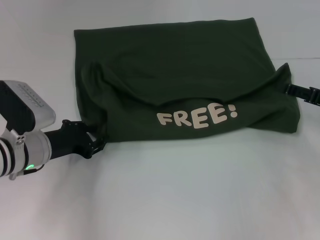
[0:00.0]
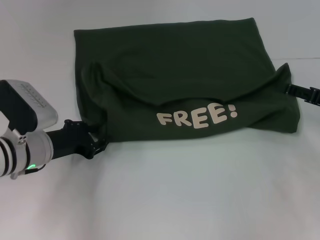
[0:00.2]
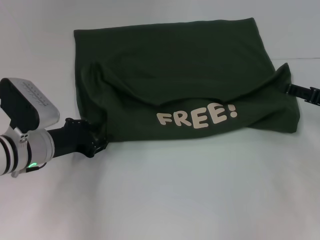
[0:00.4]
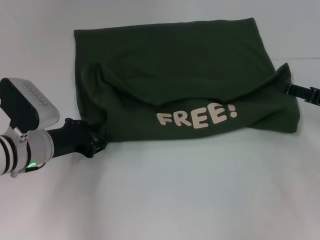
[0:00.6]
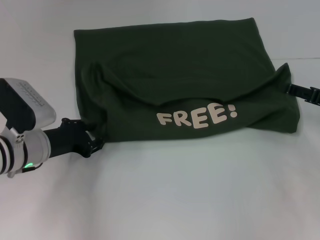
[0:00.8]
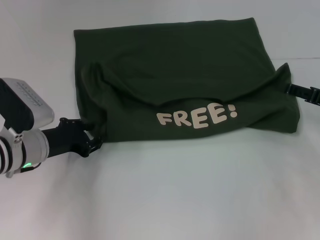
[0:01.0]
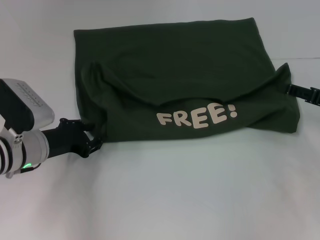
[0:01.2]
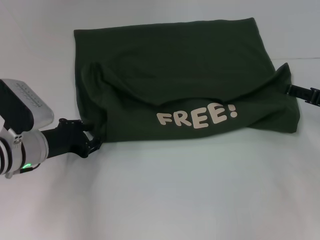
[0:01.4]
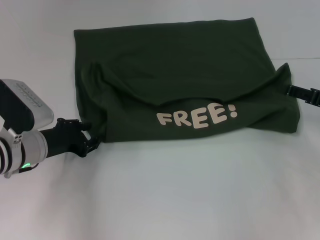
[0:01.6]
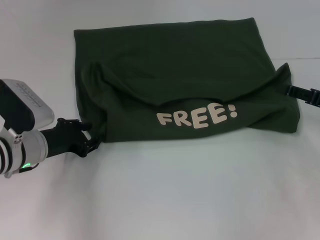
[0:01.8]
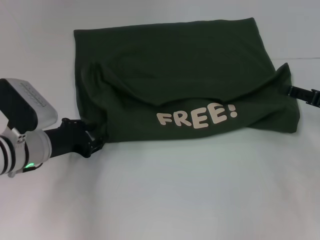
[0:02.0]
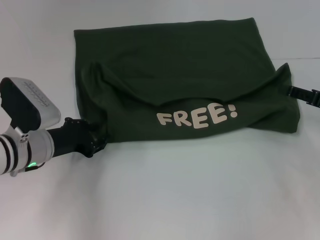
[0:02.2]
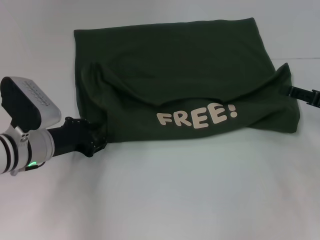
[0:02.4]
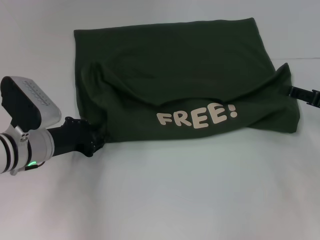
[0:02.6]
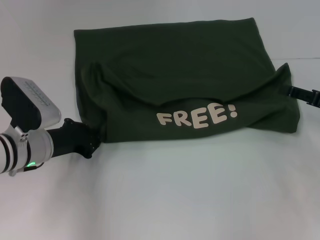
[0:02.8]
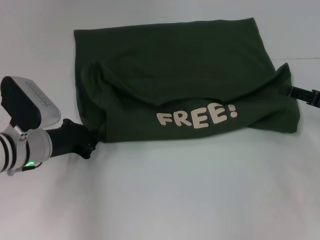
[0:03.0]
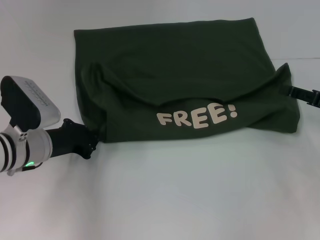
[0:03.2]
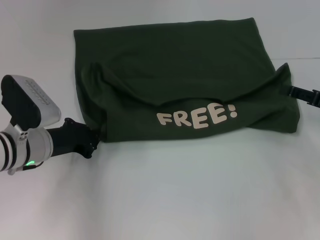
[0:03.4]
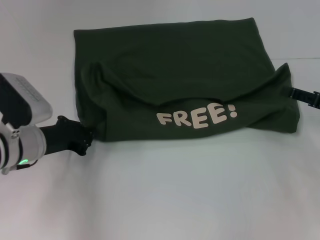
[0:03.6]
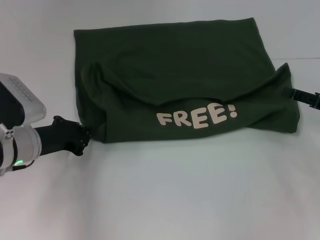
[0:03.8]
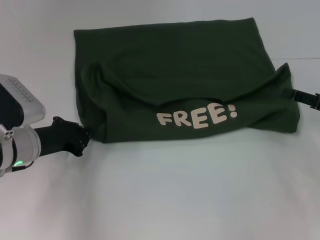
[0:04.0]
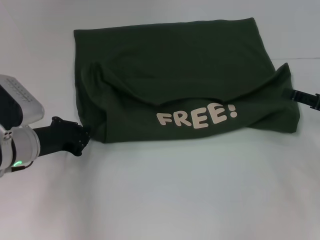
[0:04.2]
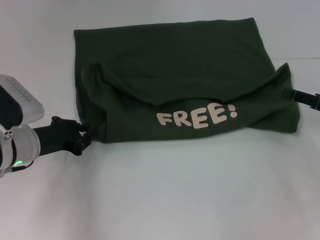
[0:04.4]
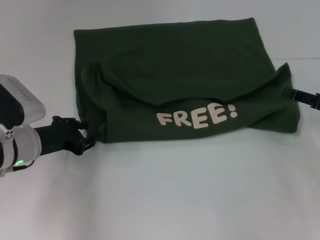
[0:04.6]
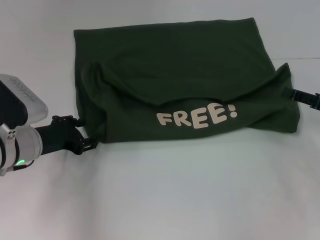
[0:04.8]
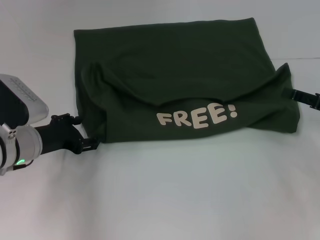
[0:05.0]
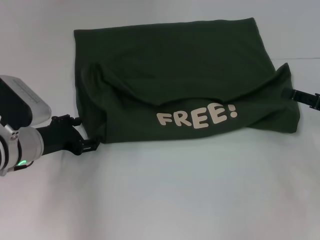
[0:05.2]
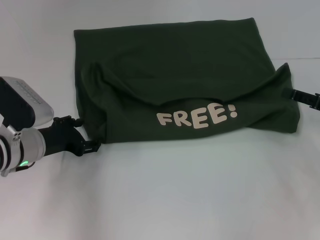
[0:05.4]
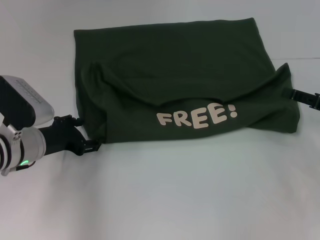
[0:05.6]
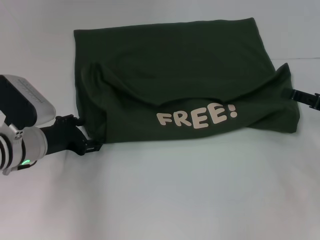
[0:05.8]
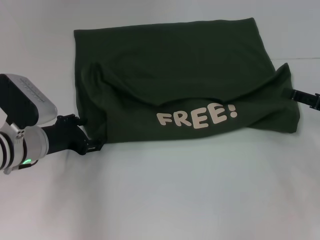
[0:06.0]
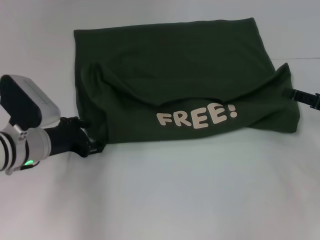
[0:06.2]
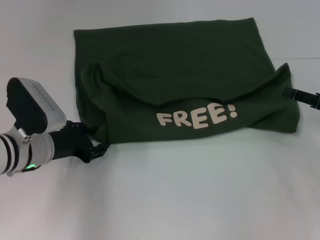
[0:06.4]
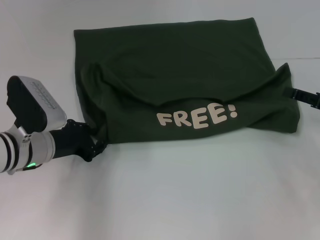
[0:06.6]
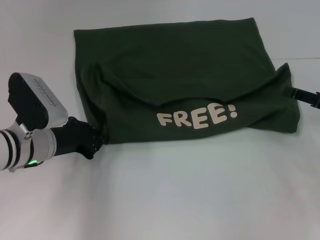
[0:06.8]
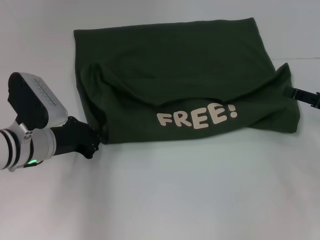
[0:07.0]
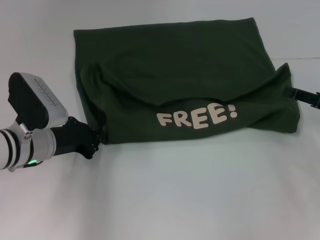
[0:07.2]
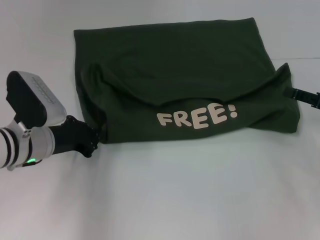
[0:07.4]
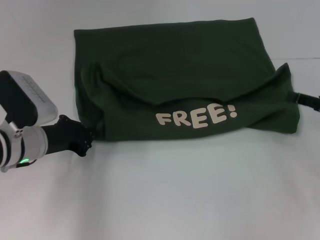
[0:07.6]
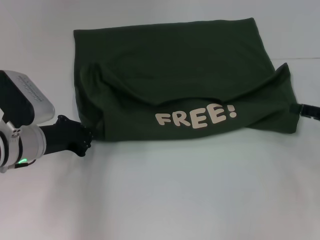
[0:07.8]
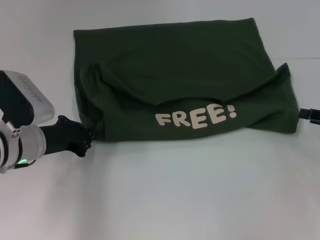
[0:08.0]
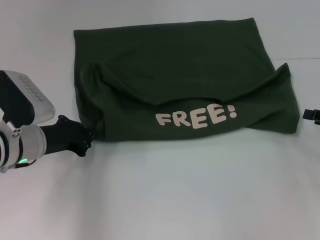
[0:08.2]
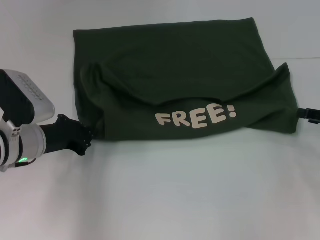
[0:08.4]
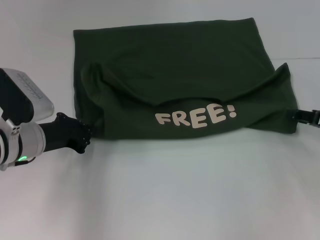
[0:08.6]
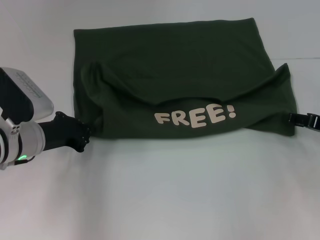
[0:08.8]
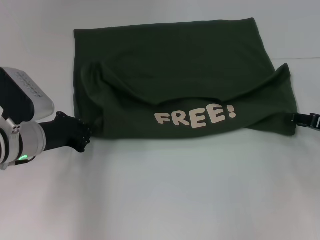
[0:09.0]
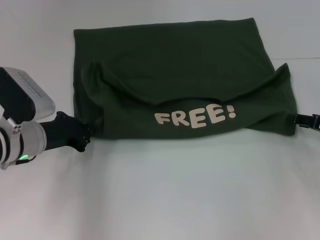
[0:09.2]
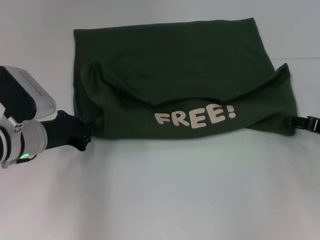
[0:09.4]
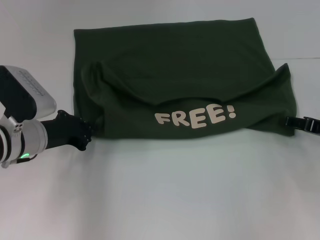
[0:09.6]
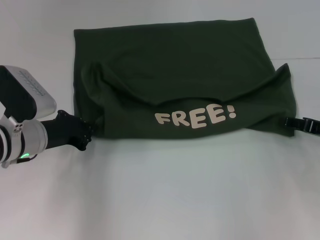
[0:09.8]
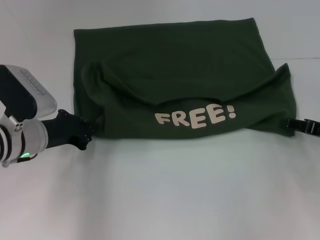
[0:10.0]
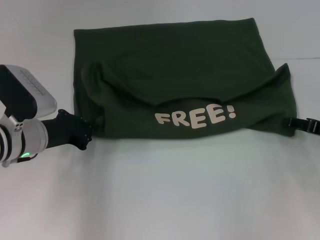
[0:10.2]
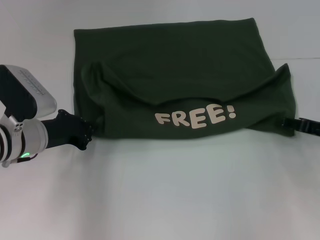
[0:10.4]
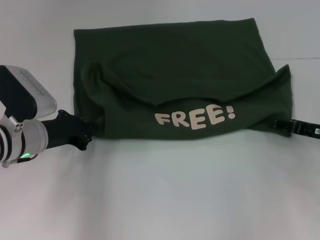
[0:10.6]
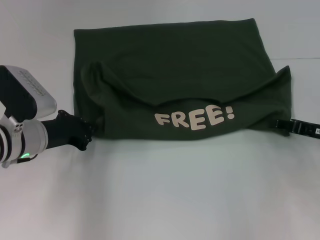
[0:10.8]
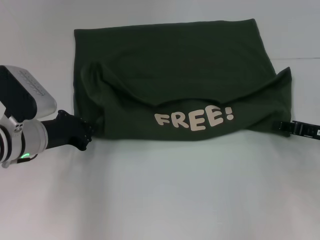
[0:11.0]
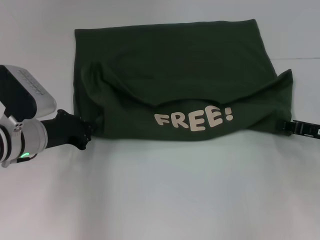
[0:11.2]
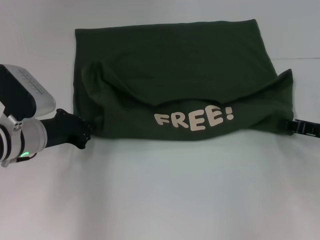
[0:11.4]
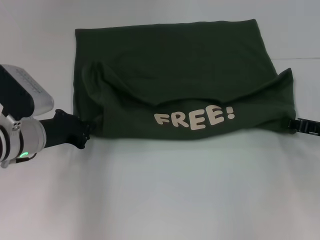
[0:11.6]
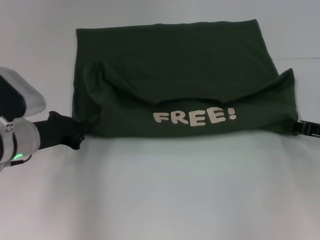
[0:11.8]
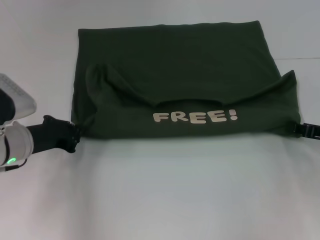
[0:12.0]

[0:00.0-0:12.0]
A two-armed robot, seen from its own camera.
0:00.0 to 0:03.0: Both grippers stay about where they are.
0:03.0 to 0:04.4: There are only small adjustments of the grippers.
0:04.4 to 0:06.0: The left gripper opens up.
0:06.0 to 0:07.6: The left gripper closes.
0:07.6 to 0:10.4: The grippers move only a little.
0:10.4 to 0:12.0: The right gripper closes its fingers.

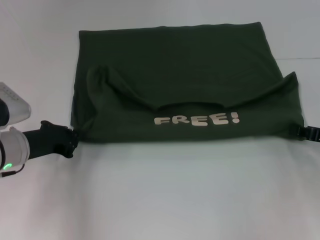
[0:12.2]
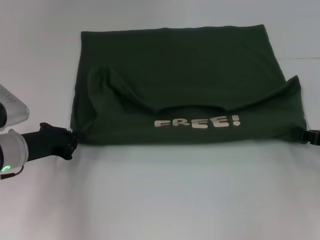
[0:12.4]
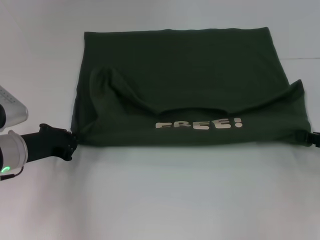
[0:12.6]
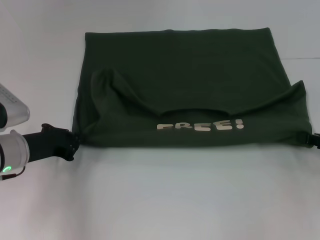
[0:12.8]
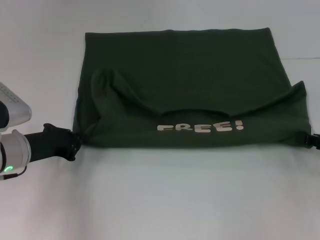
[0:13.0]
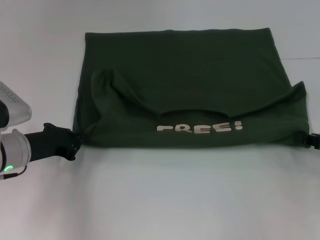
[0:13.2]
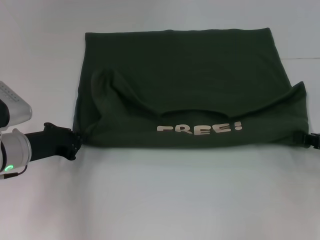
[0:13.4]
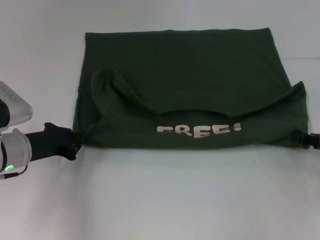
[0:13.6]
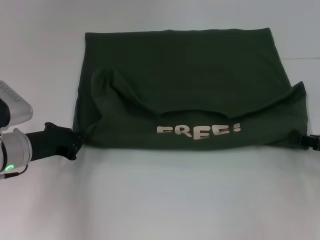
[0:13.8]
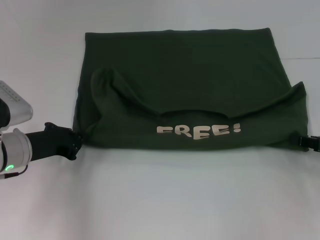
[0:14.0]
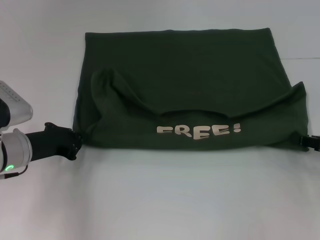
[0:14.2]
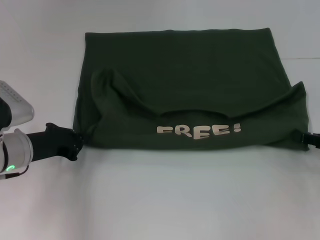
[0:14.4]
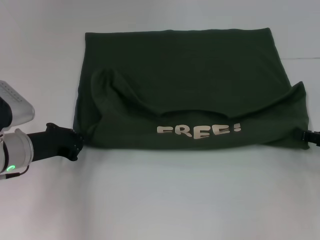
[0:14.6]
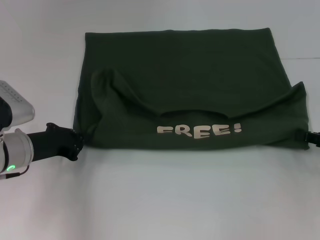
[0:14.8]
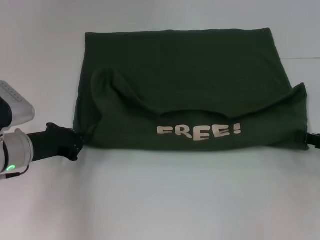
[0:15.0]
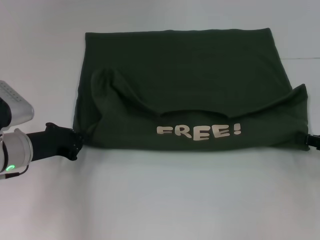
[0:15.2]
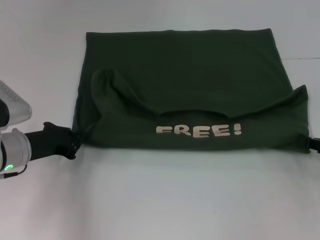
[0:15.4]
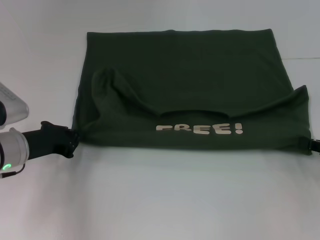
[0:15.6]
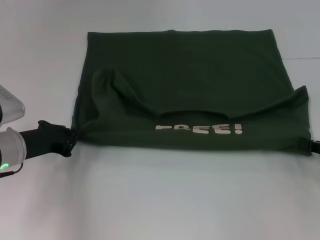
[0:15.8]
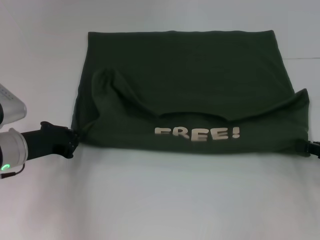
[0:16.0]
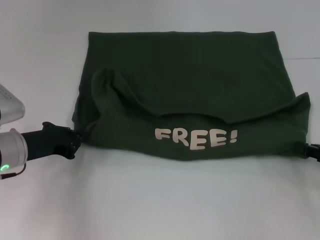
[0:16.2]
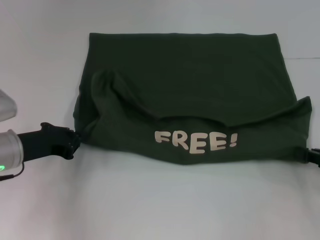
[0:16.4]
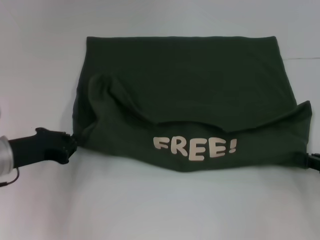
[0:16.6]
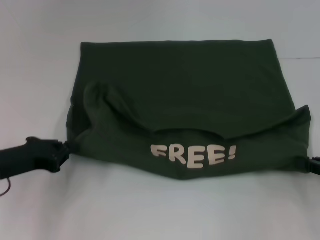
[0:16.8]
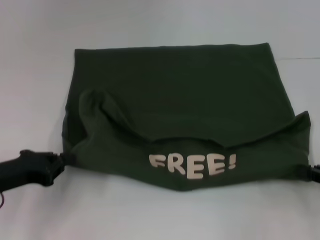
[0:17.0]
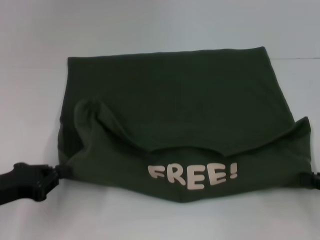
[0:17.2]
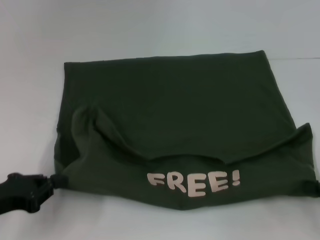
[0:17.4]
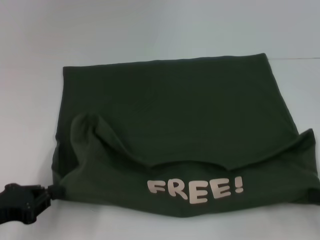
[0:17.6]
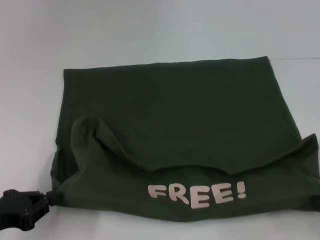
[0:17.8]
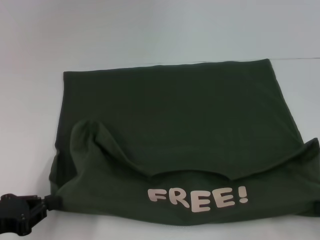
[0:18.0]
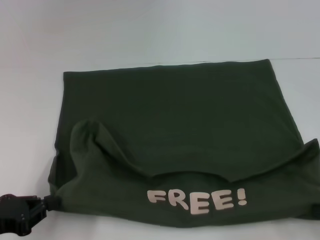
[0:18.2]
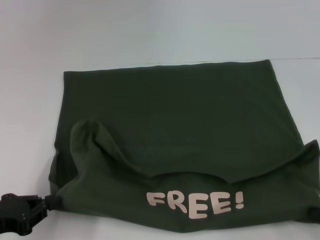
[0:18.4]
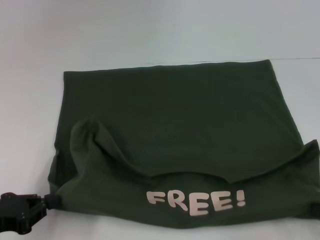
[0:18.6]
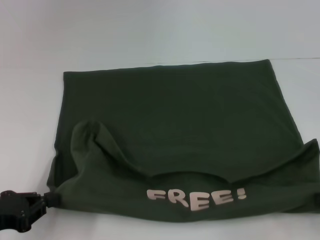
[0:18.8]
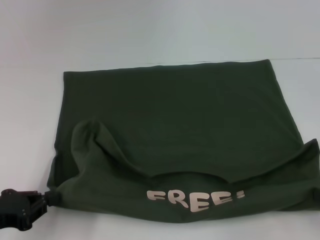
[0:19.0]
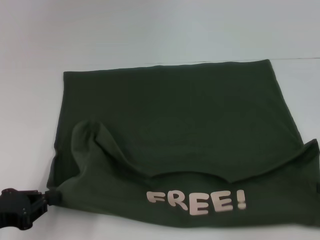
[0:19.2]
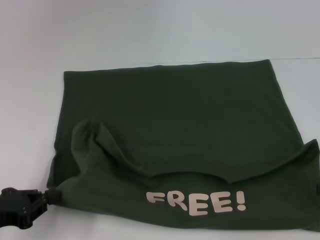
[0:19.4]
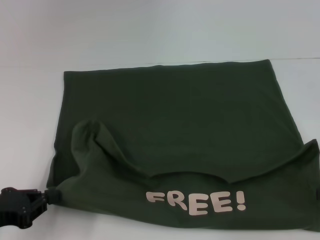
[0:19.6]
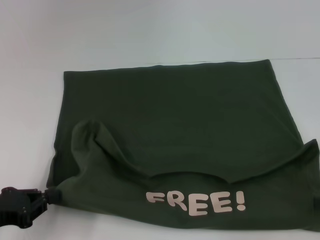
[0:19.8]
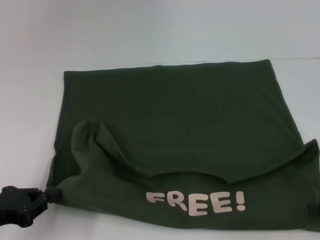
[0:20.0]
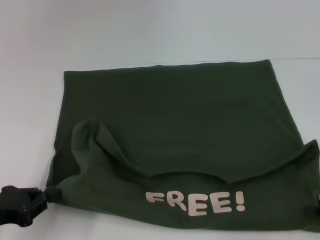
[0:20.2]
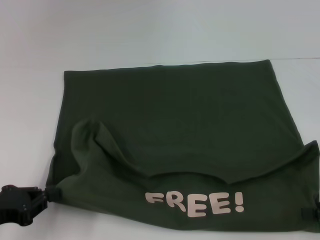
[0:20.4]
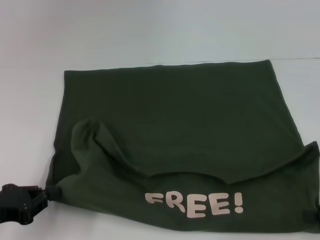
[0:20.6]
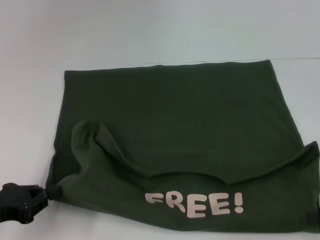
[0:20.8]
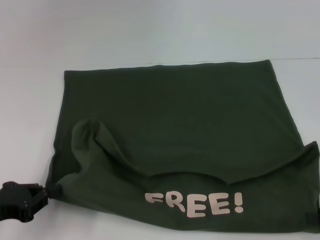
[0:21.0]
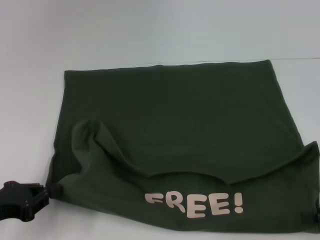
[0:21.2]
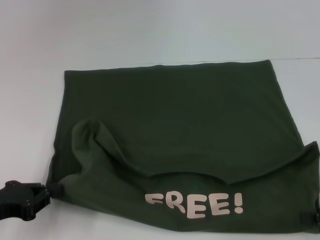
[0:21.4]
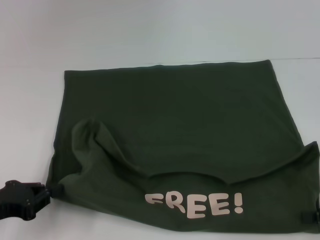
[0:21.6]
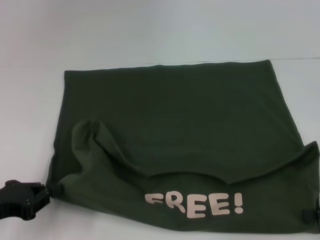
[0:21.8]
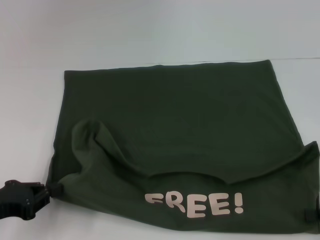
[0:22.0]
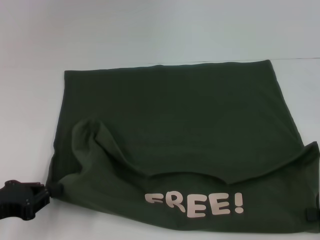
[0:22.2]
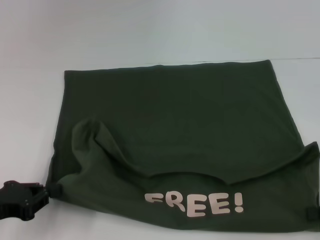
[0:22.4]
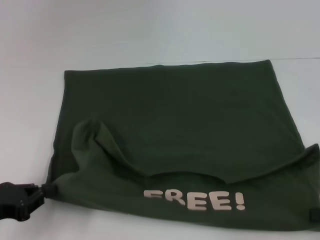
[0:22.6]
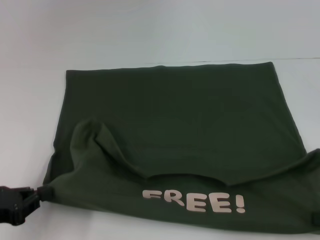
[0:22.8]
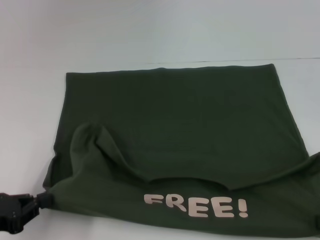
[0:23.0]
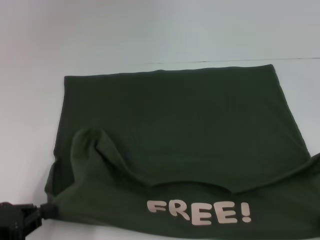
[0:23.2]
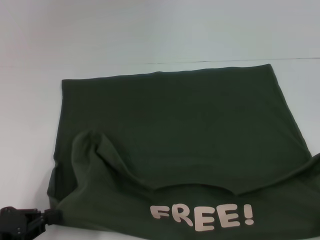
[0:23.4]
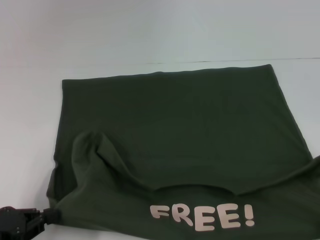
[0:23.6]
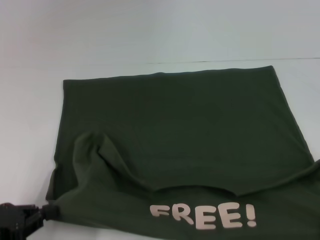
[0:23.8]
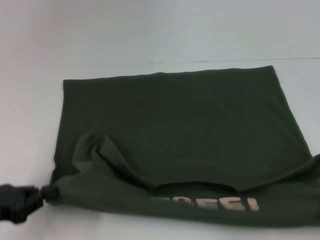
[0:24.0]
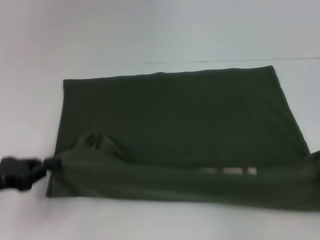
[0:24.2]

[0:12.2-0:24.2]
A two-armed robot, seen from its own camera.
Step, 0:12.2 to 0:23.0: Pull the clothes with your left hand.
Step, 0:12.2 to 0:23.0: Pull the clothes with your right hand.
0:12.2 to 0:13.8: The grippers stay close to where they were, moving slightly.
0:13.8 to 0:15.2: Both grippers stay put.
0:15.2 to 0:16.6: The grippers stay close to where they were, moving slightly.
0:16.6 to 0:18.2: The left gripper travels backward and to the left by approximately 10 cm; the right gripper travels backward by roughly 5 cm.
0:18.2 to 0:19.8: The right gripper opens its fingers.
0:19.8 to 0:21.2: There are only small adjustments of the grippers.
0:21.2 to 0:22.6: The right gripper closes its fingers.
0:22.6 to 0:24.2: The grippers stay close to where they were, moving slightly.
